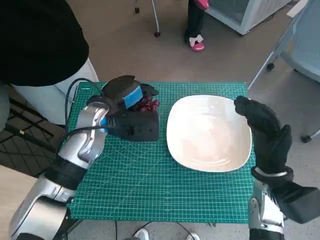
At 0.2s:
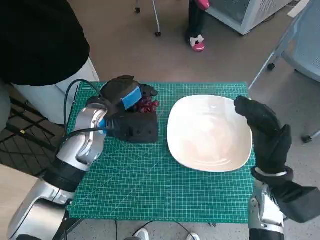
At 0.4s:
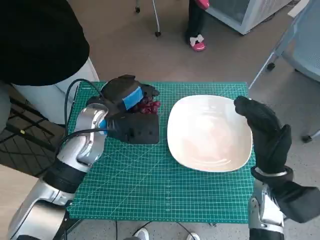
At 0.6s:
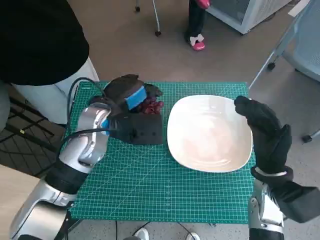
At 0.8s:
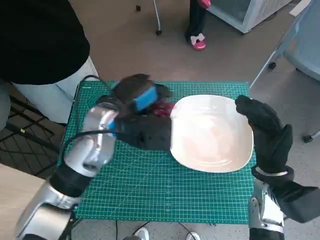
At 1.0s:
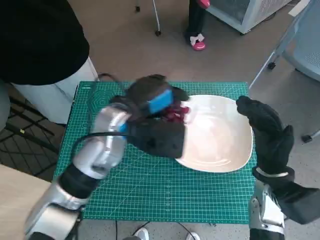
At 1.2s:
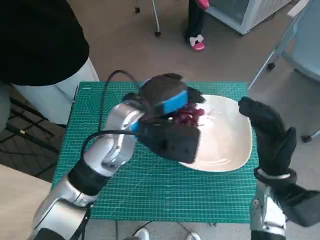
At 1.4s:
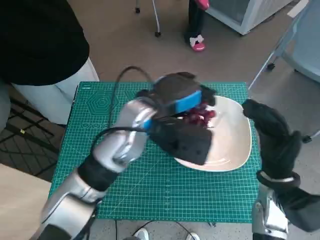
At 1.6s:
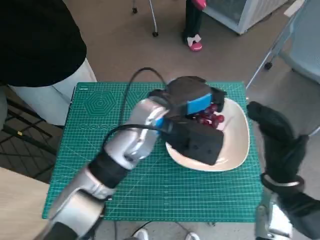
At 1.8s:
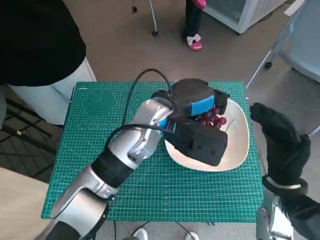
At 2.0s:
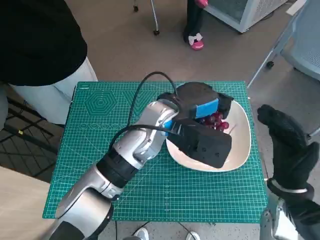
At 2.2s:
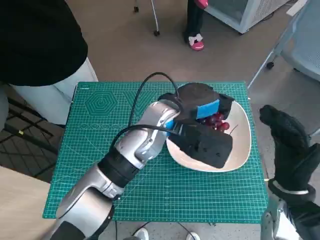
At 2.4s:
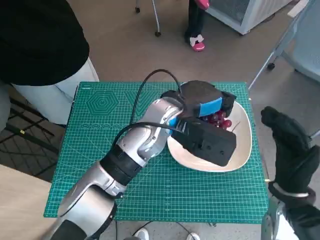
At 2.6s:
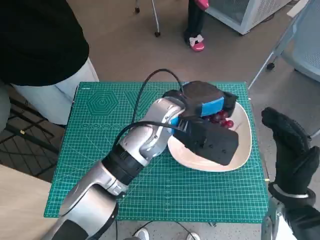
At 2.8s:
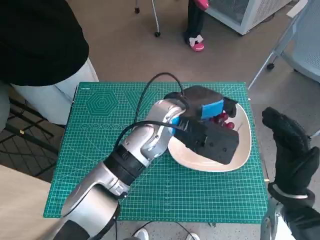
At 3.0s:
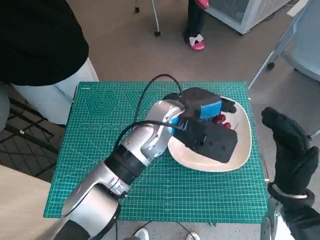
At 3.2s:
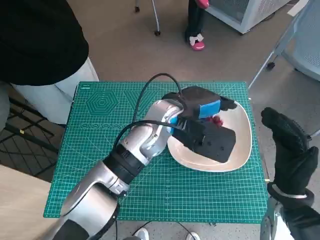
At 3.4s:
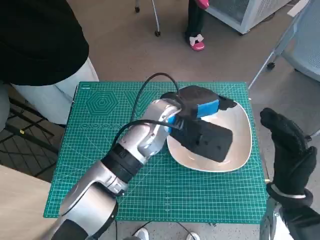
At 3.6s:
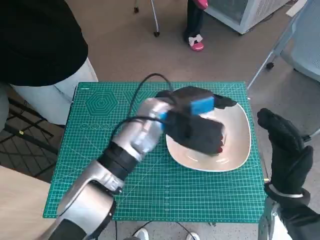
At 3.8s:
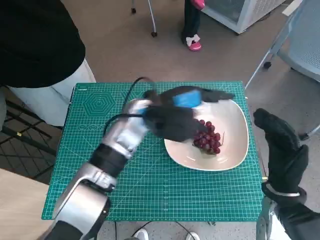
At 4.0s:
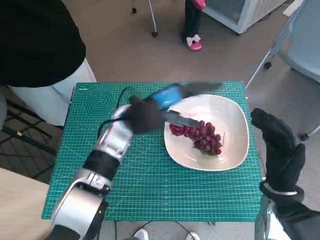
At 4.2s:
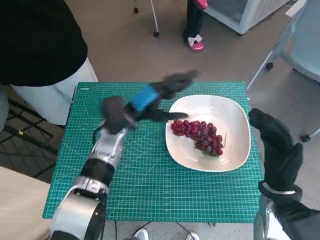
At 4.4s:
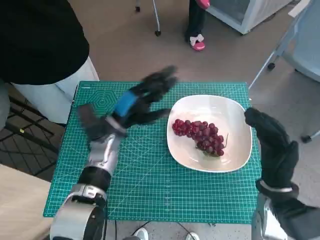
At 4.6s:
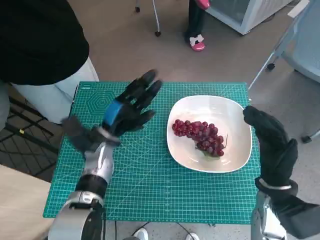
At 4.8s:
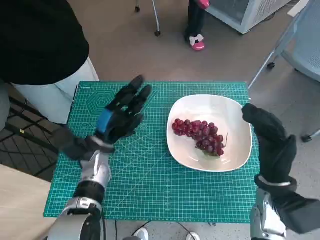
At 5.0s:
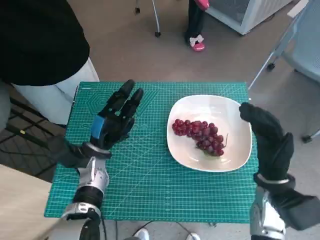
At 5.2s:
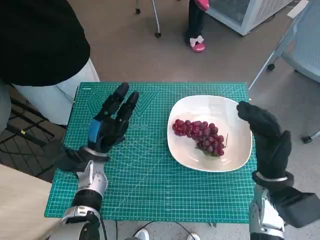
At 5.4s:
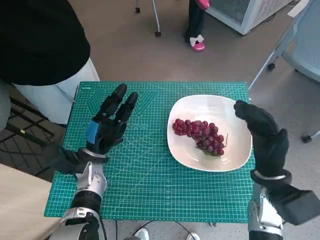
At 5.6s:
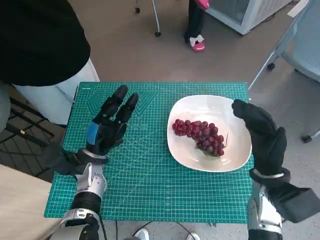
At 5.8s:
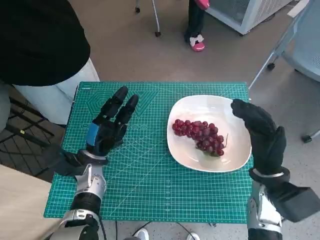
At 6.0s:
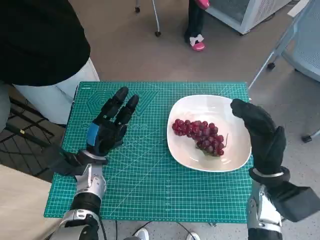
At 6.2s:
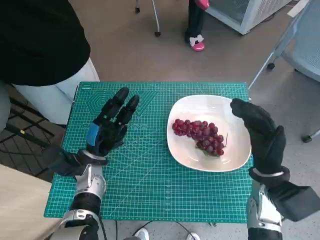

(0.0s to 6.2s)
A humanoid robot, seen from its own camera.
Task of the whole recording: Pick up the grapes and put them on the plate.
Step, 0.0s - 3.2s: Place the grapes in the plate with left hand.
0.0s - 1.6s: The left hand travels to the right by roughly 10 cm.
3.2s - 4.6s: The left hand shifts roughly 20 cm to the left and downward.
4.6s - 6.2s: The left hand moves downward, approximately 5 cm.

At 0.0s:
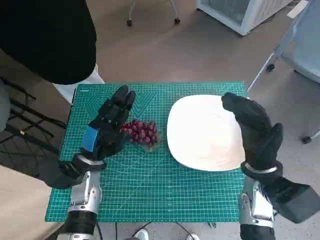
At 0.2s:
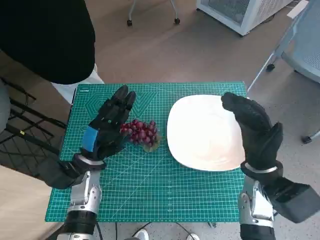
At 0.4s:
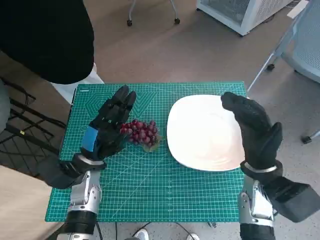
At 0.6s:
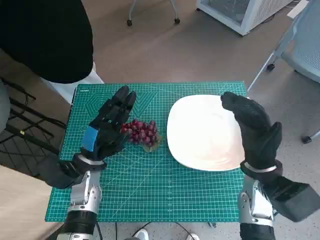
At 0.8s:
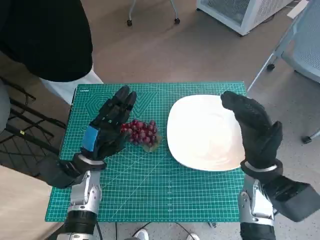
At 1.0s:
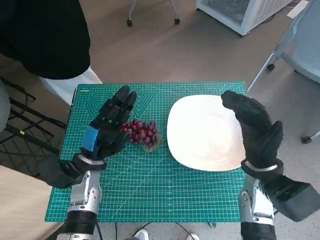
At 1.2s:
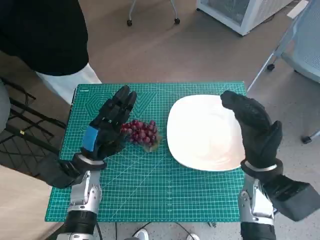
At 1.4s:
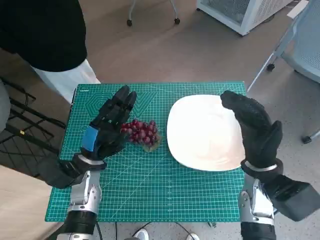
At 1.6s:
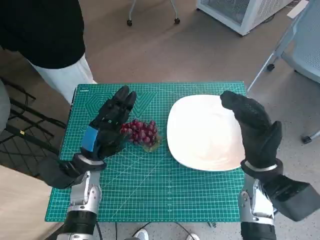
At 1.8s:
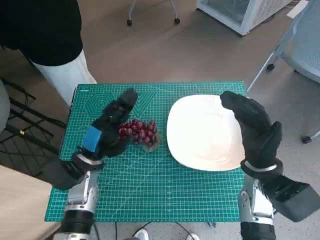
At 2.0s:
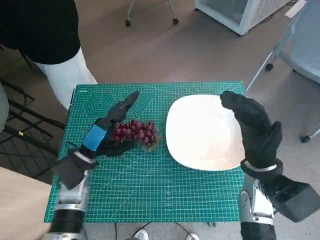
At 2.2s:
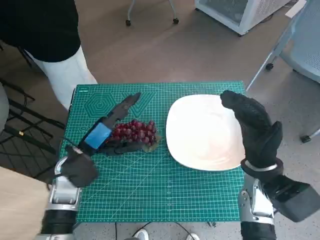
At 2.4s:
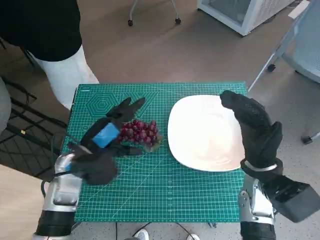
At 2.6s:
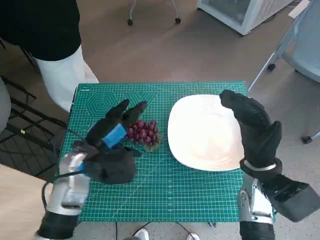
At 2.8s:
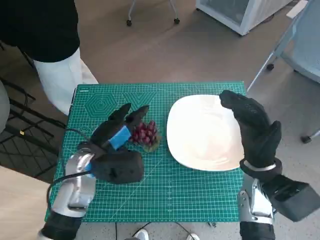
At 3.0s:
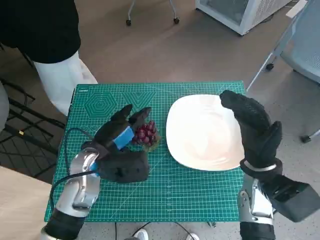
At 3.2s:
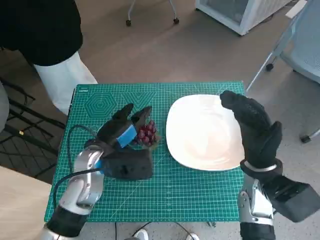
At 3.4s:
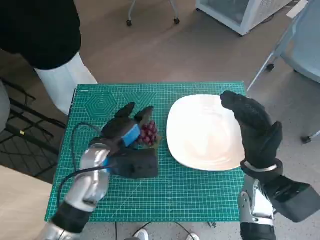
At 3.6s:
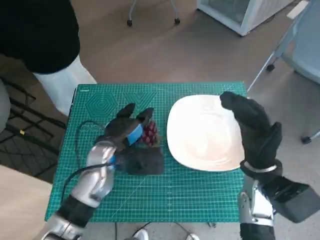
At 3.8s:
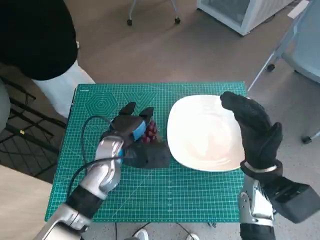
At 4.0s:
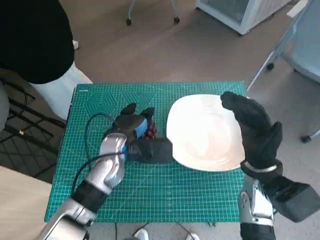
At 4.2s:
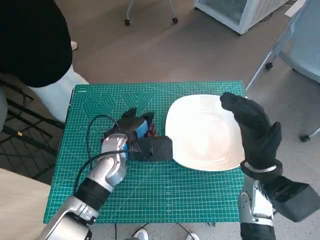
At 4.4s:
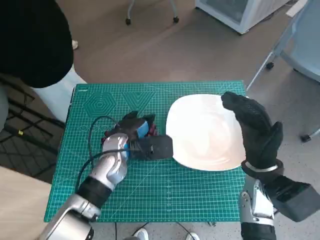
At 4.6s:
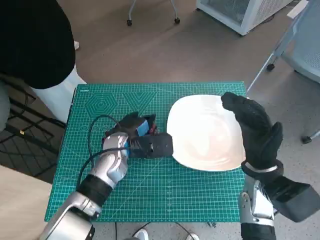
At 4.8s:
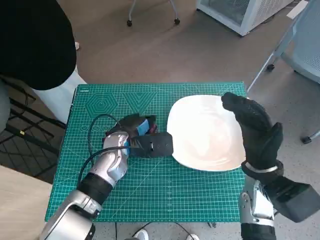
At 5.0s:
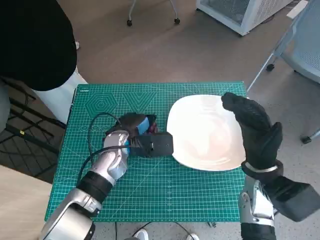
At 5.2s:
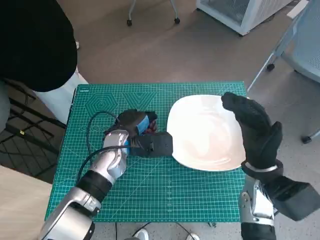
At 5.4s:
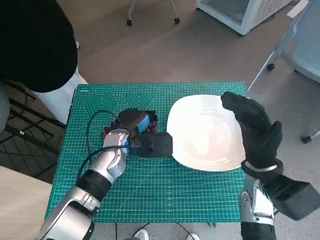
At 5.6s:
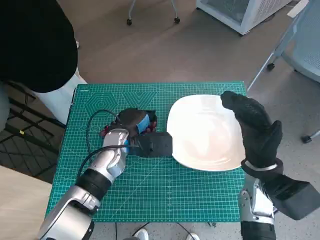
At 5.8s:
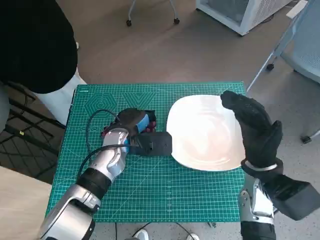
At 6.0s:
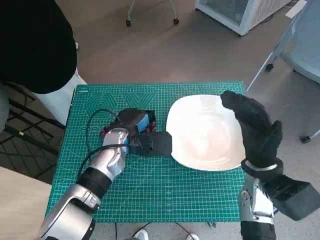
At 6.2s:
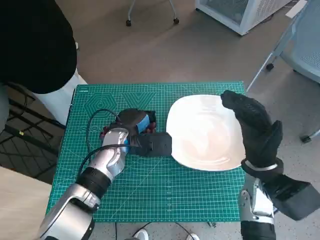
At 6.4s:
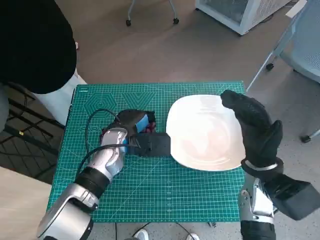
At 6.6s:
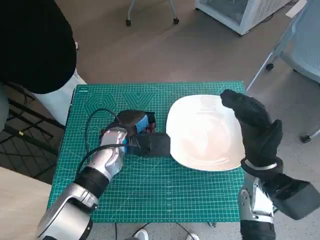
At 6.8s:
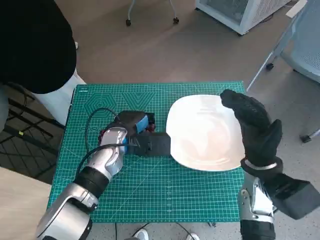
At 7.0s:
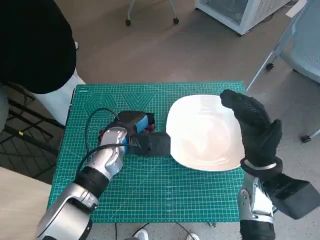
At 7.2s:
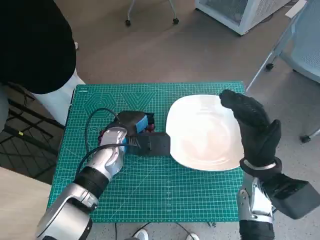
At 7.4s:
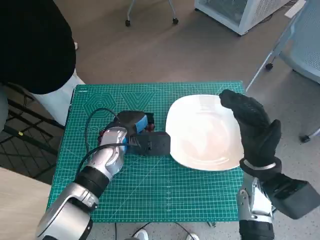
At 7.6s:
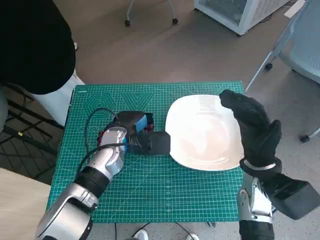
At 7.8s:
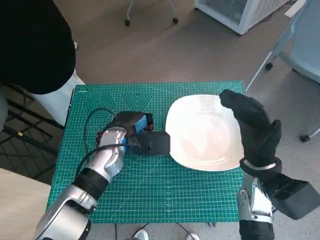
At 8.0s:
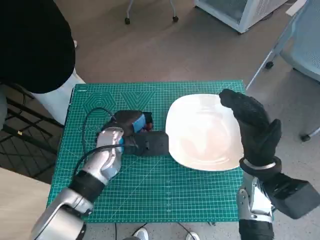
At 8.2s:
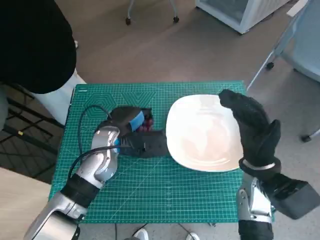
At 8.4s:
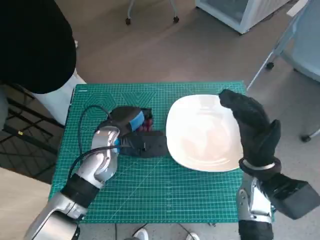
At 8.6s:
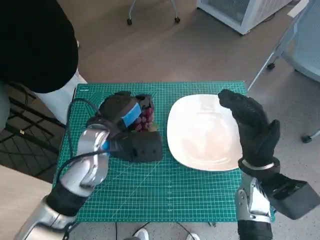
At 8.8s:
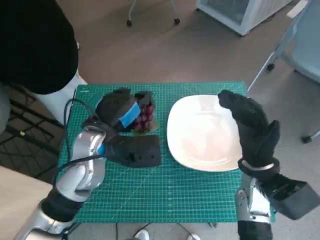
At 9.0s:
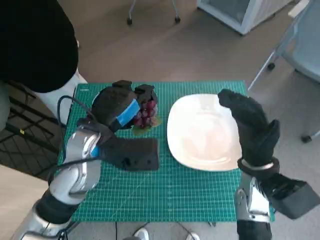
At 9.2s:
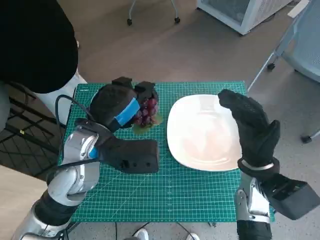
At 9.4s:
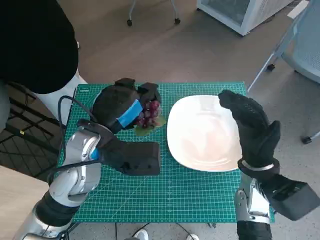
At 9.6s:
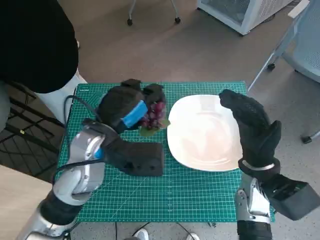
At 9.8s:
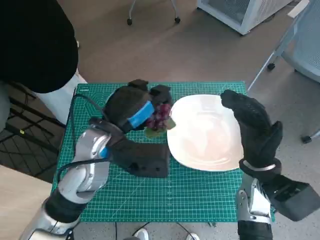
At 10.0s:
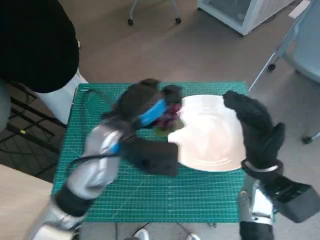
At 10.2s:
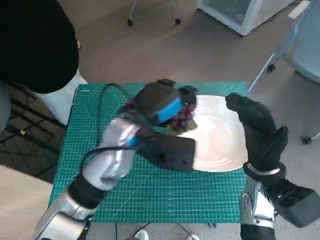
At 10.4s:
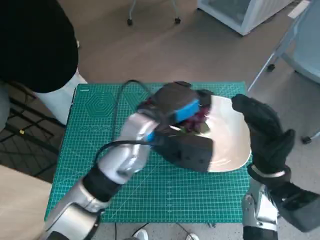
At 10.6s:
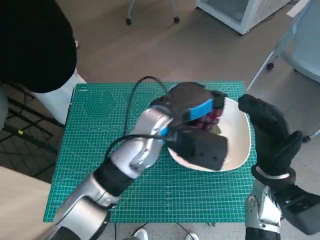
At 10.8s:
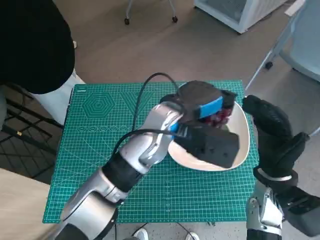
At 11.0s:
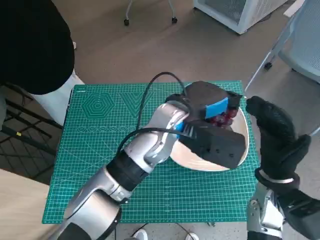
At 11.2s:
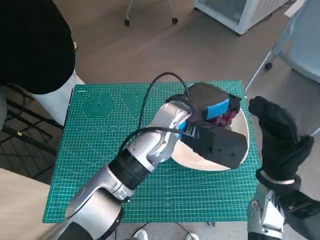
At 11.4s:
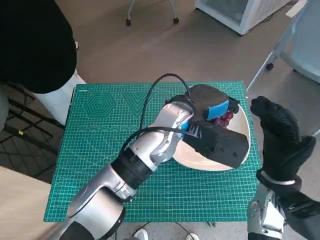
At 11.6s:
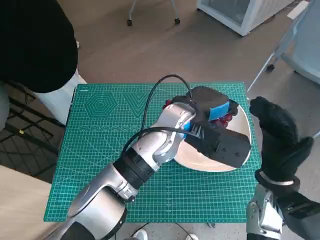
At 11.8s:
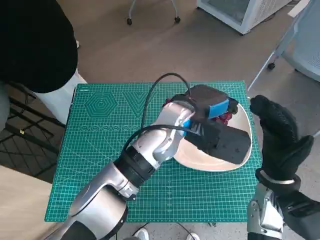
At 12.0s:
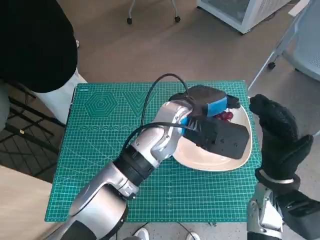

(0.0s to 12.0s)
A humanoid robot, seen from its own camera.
Task of the whole recording: Pick up the grapes and put them on the plate.
Step, 0.0s - 5.4s: Grasp the grapes with left hand.
1.6s - 3.0s: The left hand moves upward, some 5 cm.
3.0s - 4.4s: The left hand heads forward, covering approximately 5 cm.
4.4s - 6.0s: There are only small adjustments of the hands.
6.0s - 7.6s: Both hands stay put.
7.6s - 9.0s: The left hand moves upward and backward, about 10 cm.
9.0s - 10.4s: The left hand shifts roughly 10 cm to the right.
10.4s - 12.0s: The left hand heads to the right, covering roughly 5 cm.

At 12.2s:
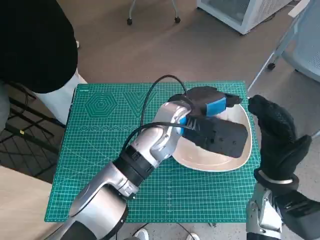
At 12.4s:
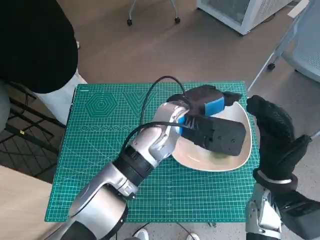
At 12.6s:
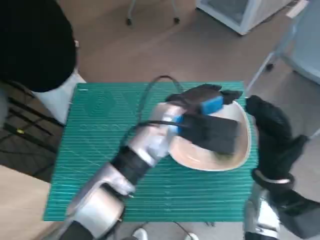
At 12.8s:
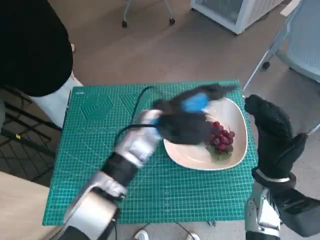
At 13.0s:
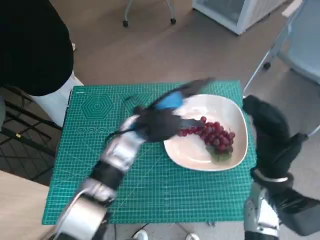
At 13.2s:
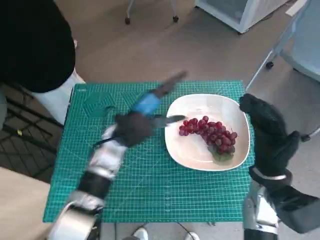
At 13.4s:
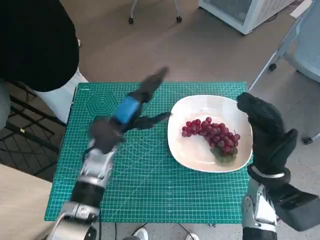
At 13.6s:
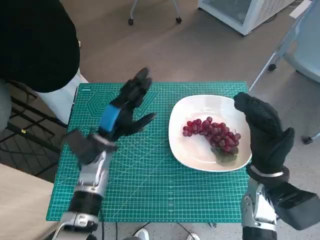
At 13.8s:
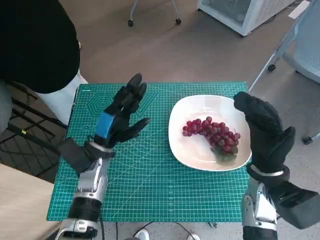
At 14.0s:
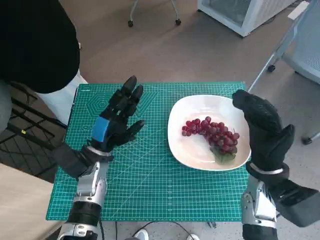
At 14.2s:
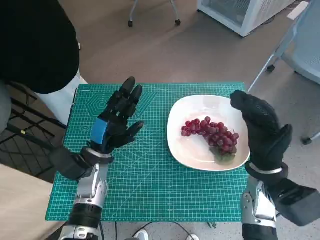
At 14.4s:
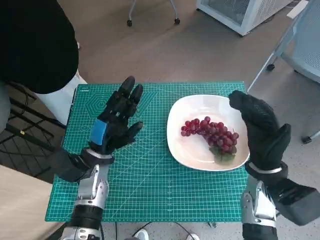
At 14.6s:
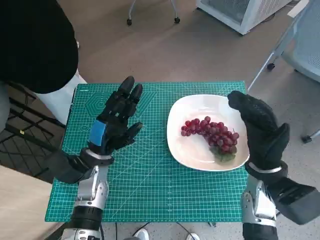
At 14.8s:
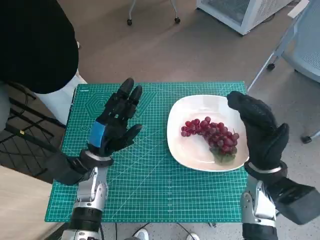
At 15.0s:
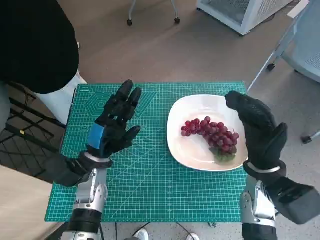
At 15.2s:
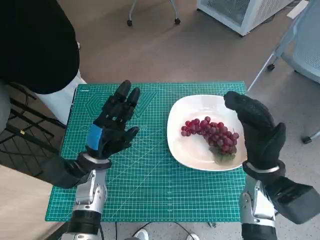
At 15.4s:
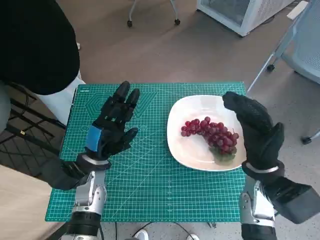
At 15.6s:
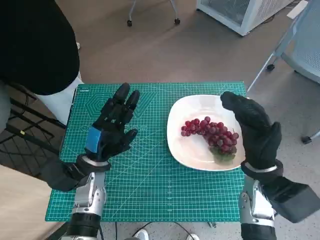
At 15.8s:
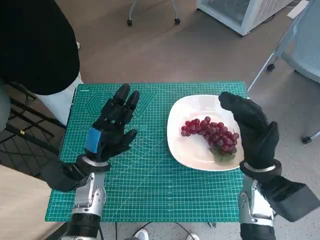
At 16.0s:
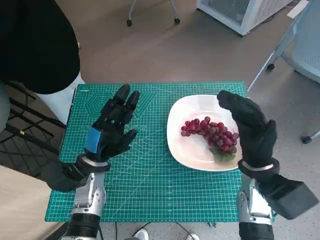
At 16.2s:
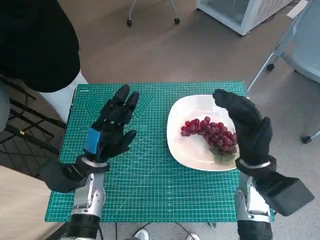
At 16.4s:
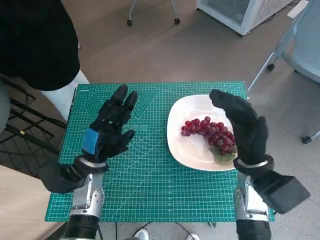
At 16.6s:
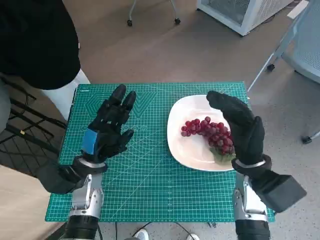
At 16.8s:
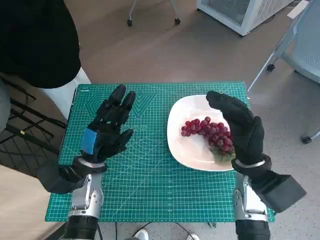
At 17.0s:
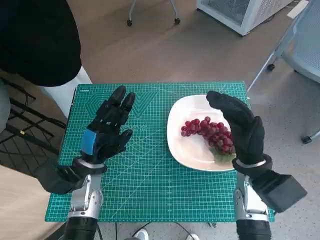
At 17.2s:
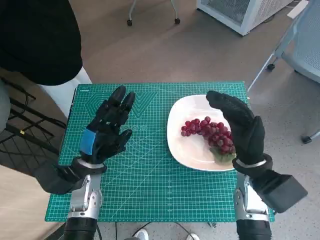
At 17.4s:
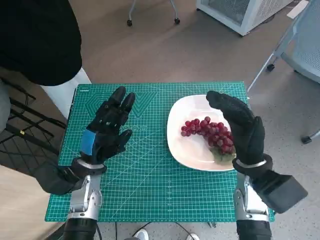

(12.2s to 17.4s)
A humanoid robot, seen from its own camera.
Task of the whole recording: Pick up the grapes and put them on the plate.
12.2s - 14.0s: The left hand shifts some 20 cm to the left and downward.
14.0s - 17.4s: The hands make only small movements.
